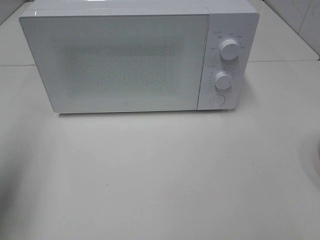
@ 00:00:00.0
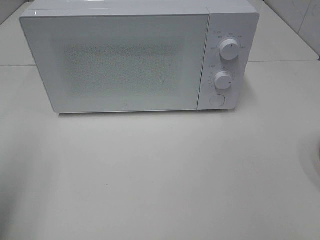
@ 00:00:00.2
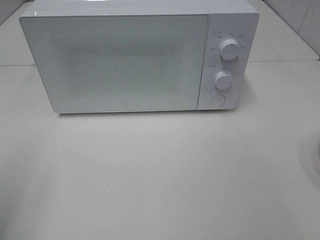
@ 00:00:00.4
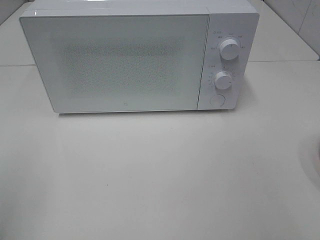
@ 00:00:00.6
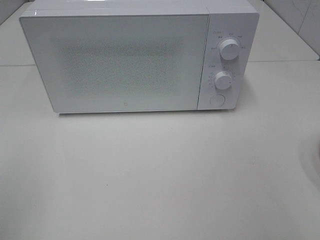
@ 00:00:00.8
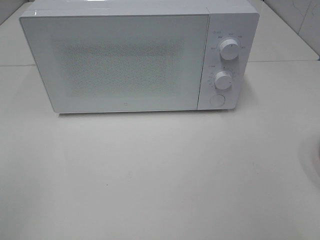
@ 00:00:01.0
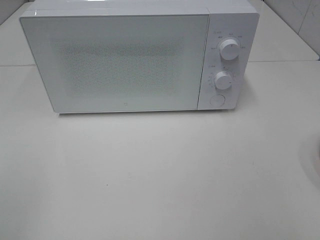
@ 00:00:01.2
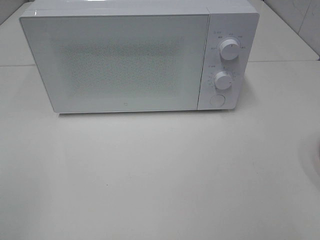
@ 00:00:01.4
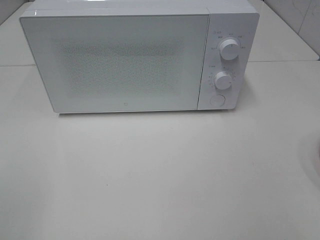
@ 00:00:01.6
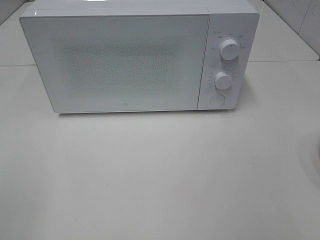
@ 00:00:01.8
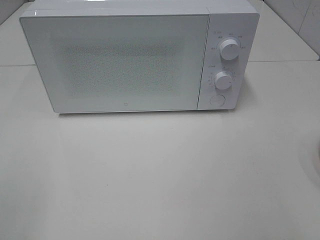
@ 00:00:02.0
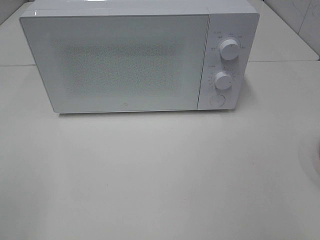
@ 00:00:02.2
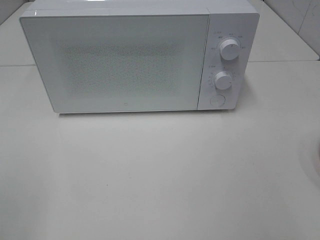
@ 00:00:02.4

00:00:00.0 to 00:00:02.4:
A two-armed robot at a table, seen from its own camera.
Task of the whole recording: Heat the burger.
00:00:00.0 to 00:00:01.2: The left gripper shifts about 15 cm backward.
